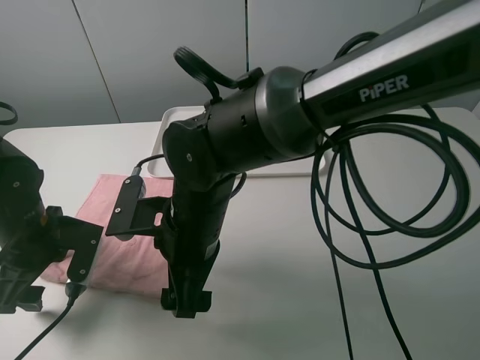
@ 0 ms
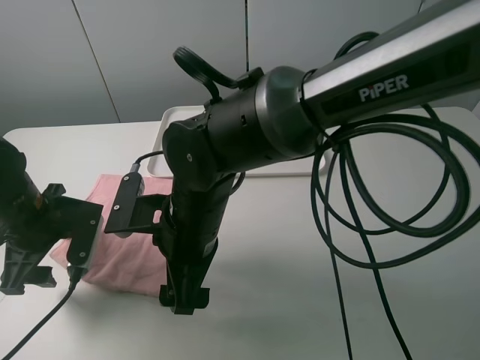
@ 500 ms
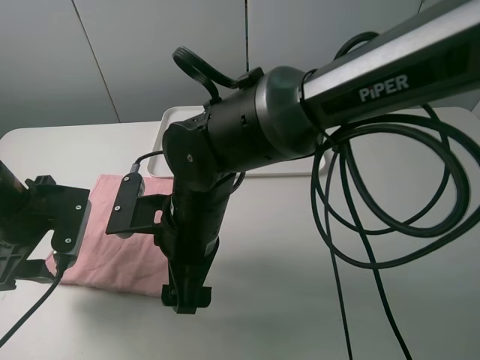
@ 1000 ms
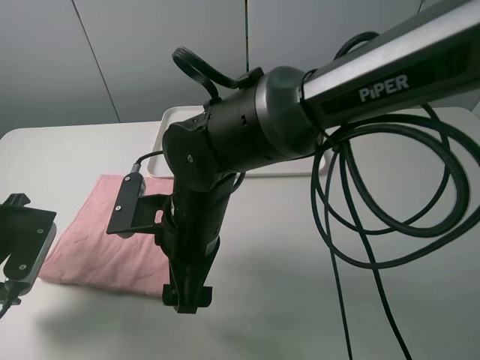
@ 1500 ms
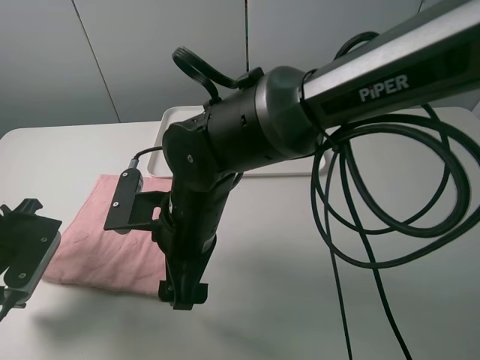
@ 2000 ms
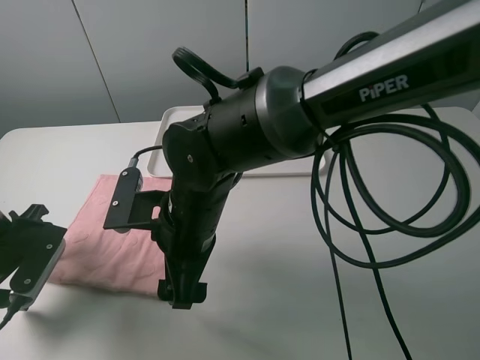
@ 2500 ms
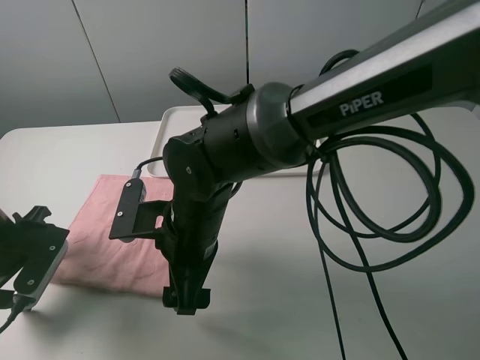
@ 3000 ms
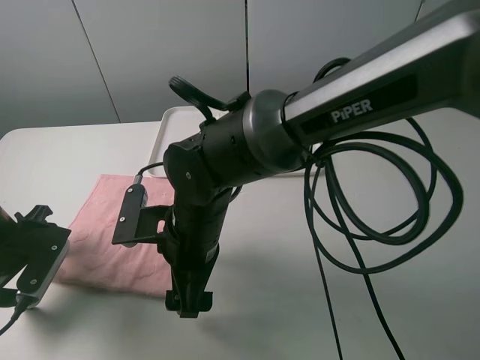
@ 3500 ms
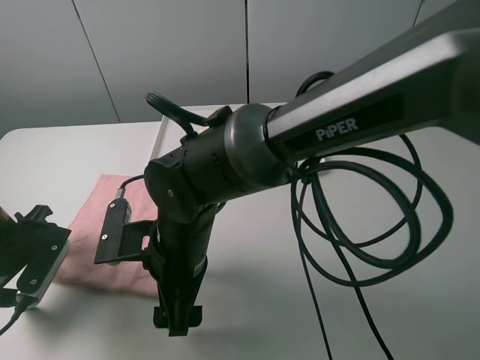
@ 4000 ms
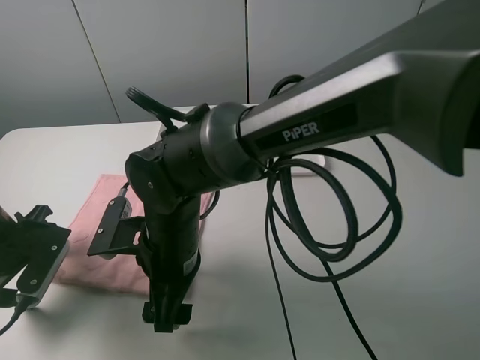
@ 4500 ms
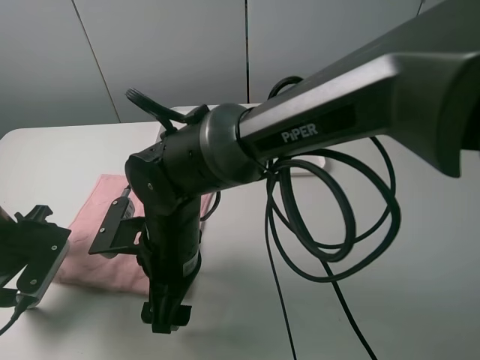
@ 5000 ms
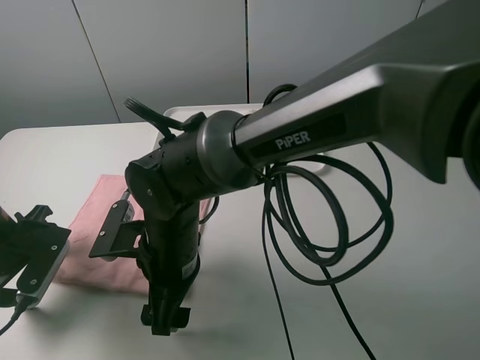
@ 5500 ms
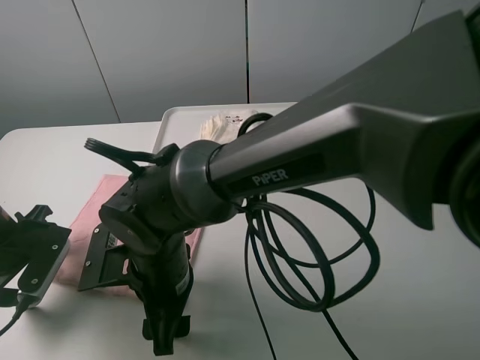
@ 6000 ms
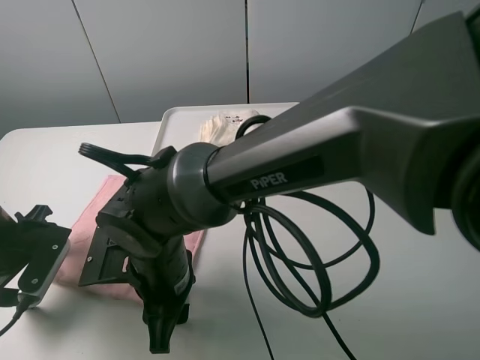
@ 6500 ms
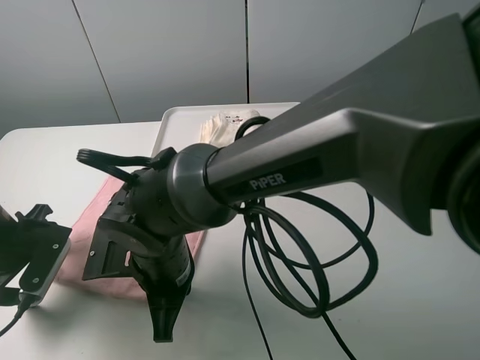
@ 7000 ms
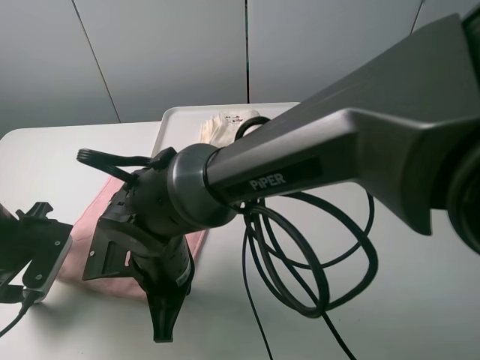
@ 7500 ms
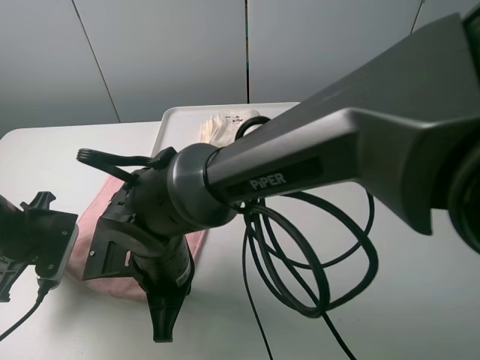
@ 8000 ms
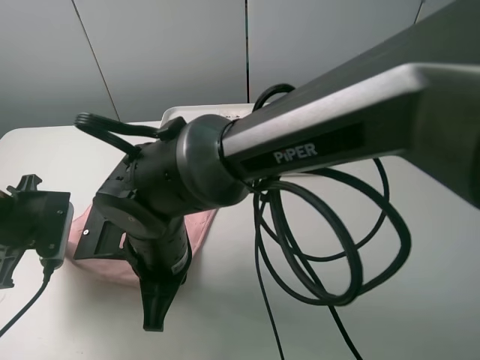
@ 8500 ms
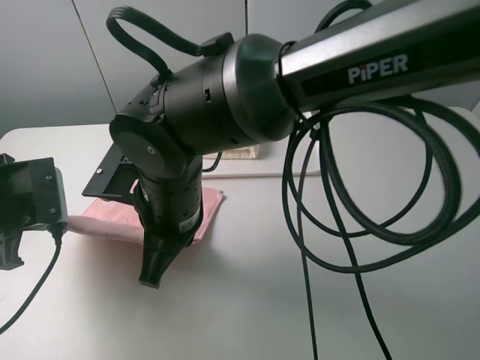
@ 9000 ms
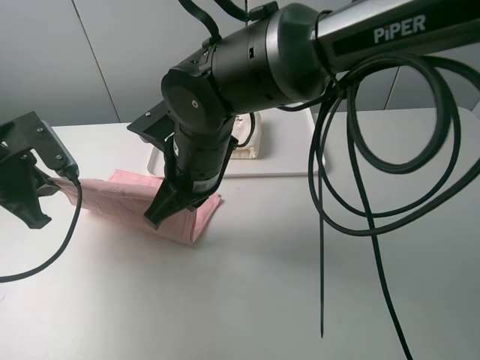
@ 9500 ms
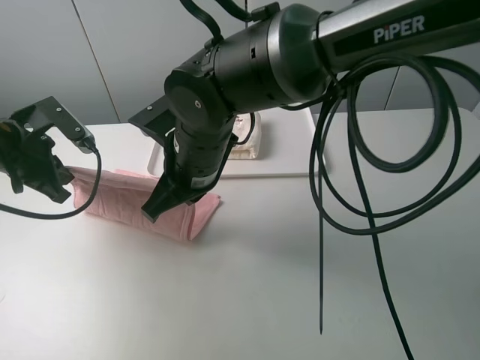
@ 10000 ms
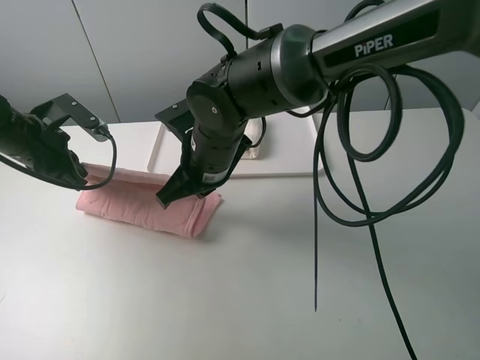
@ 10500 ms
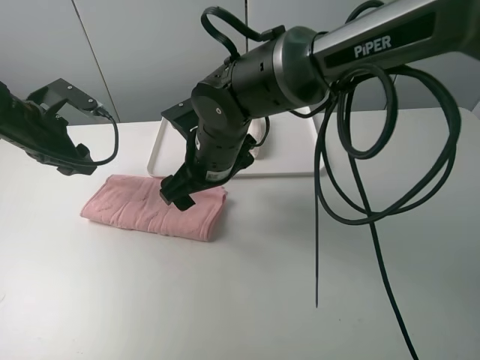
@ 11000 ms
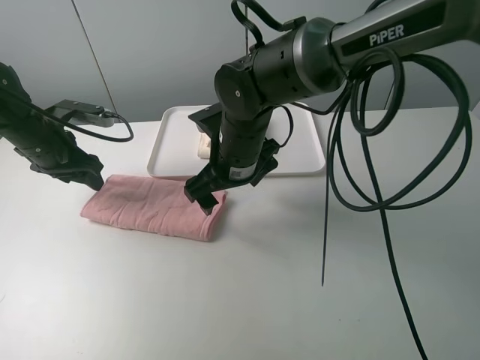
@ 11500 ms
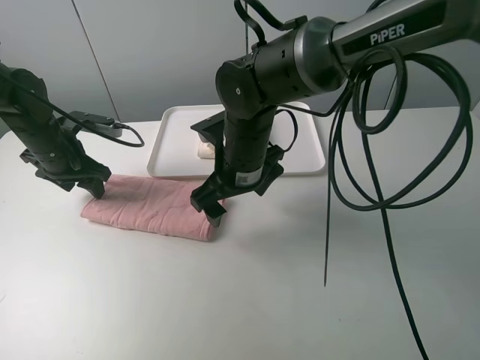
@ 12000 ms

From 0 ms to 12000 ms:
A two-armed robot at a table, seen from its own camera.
Task of the whole recording: fold one of the towels by two grippers and place it on the tray,then fold another towel by two grippers and place it on the folded towel.
Step, from 0 ms to 8000 ms: Grasp the pink towel with the left gripper.
Step, from 8500 ms to 11000 ms: Fold the pink towel upwards with the left gripper.
From 0 ms to 2000 ms: The left gripper shifts by roughly 5 cm.
From 6000 ms to 8000 ms: The right gripper closes its fingers. Meanwhile the left gripper closes.
From 8000 ms to 10000 ms: The left gripper is displaced upward and forward by about 10 cm; the right gripper shifts approximately 10 cm forward and upward.
From 10000 ms to 12000 ms: The left gripper moves forward, some 5 cm, and opens its fingers. The right gripper changes place by approximately 5 cm, and opens up.

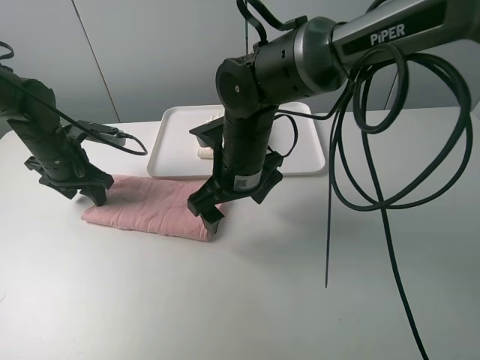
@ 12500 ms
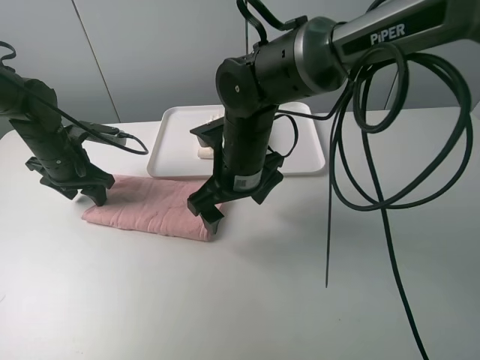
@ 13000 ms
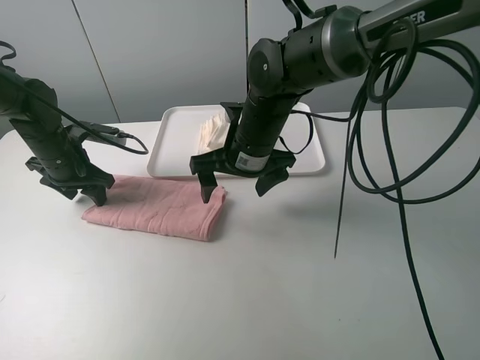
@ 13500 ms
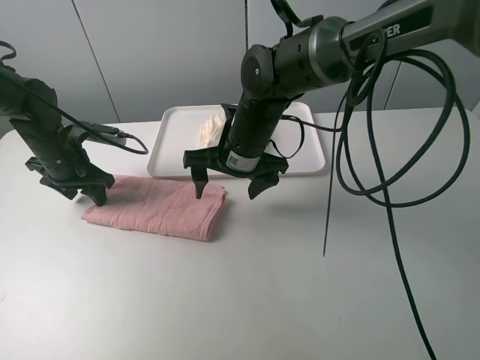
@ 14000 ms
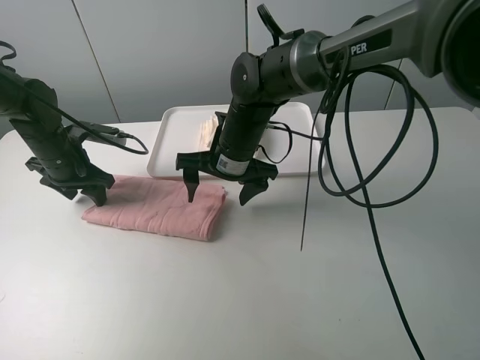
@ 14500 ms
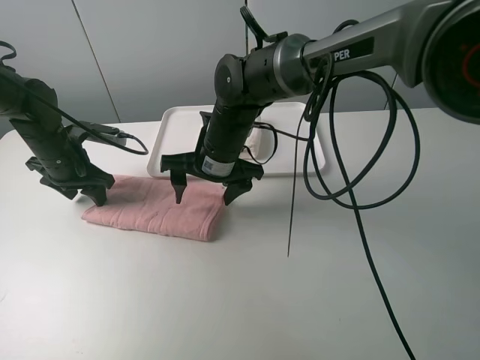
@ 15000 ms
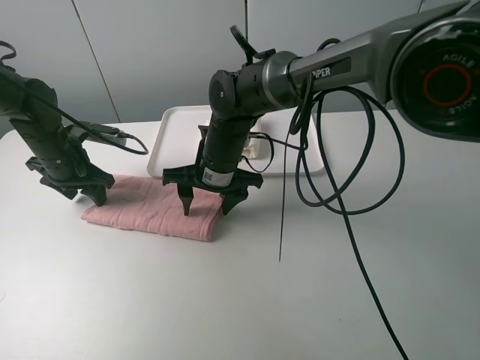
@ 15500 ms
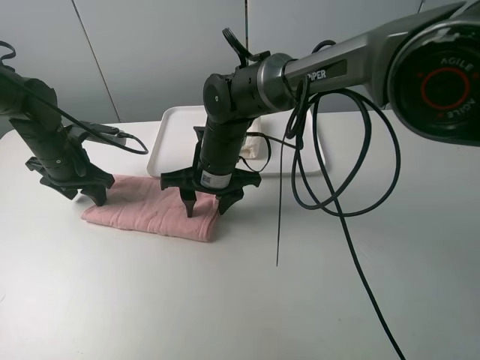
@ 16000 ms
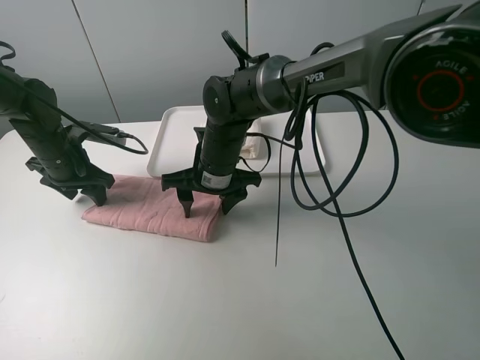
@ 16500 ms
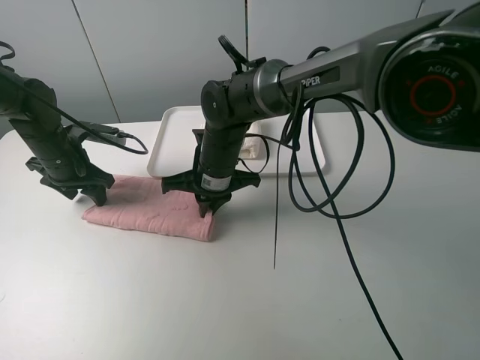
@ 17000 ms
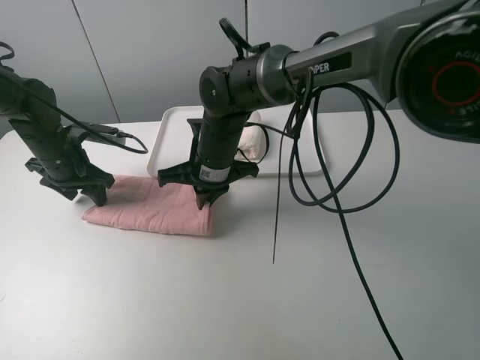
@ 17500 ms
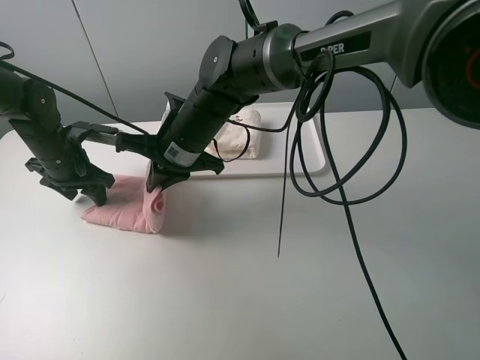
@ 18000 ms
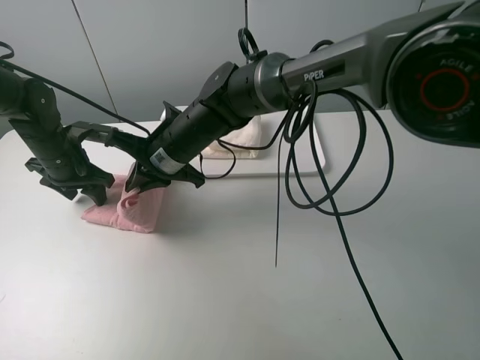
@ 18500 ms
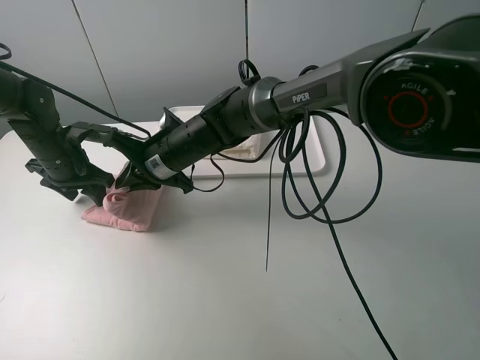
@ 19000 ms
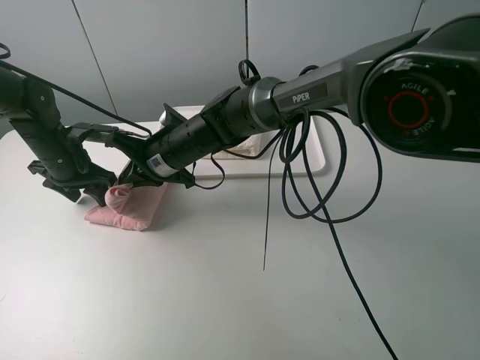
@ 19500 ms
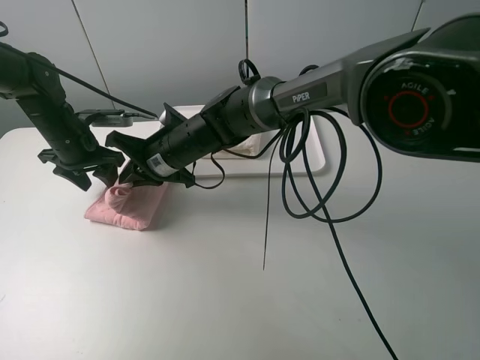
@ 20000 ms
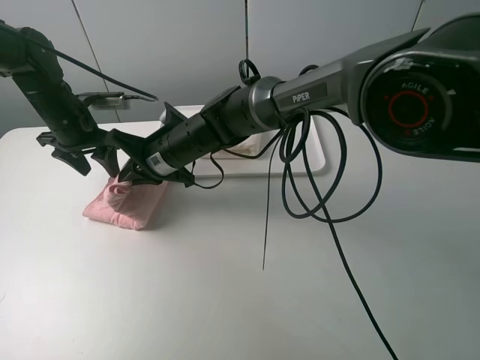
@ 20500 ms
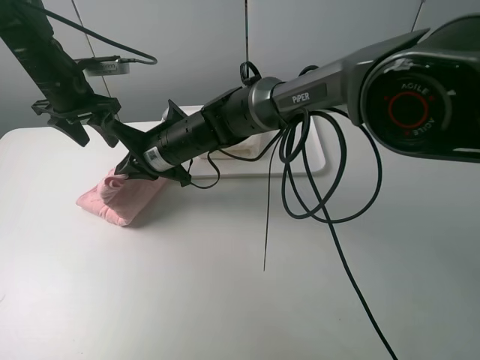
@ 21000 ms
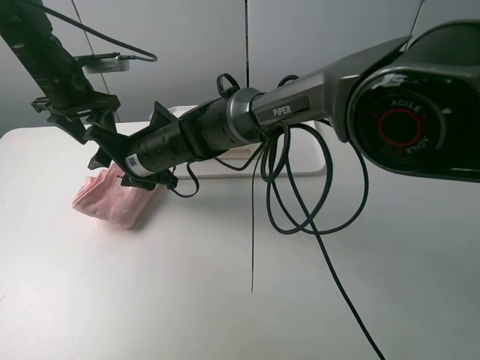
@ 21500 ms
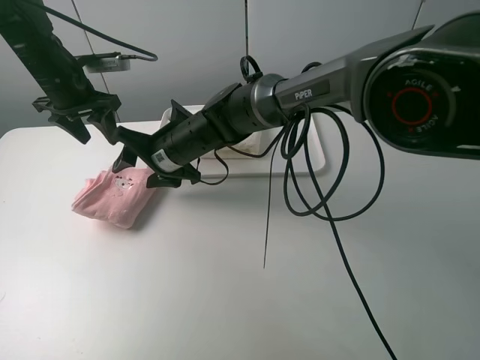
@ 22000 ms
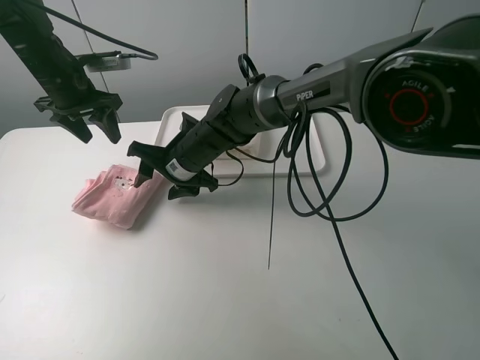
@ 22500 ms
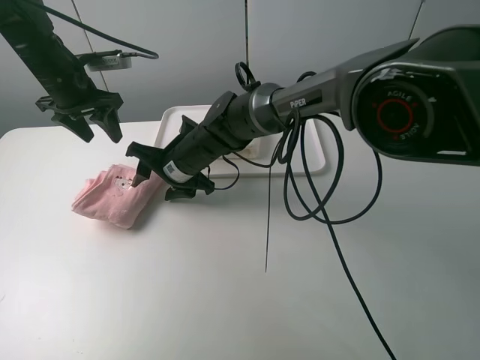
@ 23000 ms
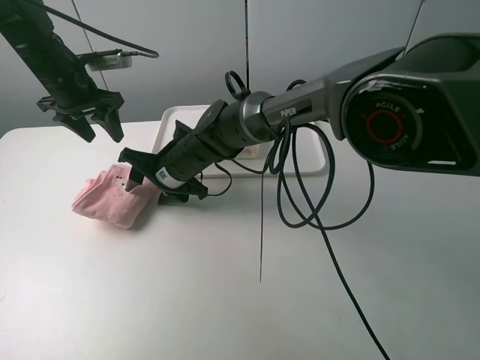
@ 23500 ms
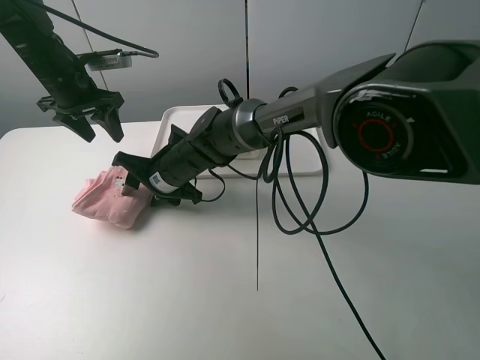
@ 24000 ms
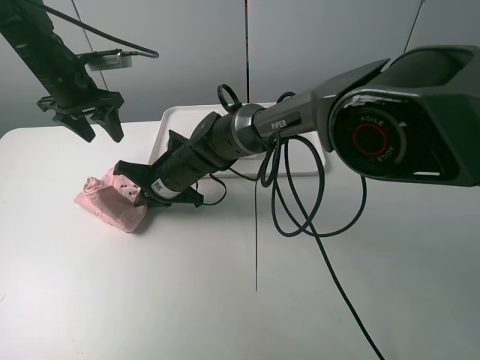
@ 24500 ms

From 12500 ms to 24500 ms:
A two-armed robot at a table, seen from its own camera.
Task of the whole recording: fold one of the towels by two grippers and place it on the tray,then fold another towel by two grippers and place it on the folded towel.
Step, from 13000 ms to 17000 ms: Grasp the pink towel with the right gripper.
Step, from 17500 ms to 21500 ms: Fold the pink towel from right to left with right gripper.
Step, from 22000 ms to 24000 ms: Grasp the pink towel with the right gripper.
From 12500 ms to 14500 ms: The right gripper shifts about 5 cm forward.
From 14500 ms to 16500 ms: The grippers move only a little.
From 16500 ms to 18500 ms: The right gripper shifts by roughly 5 cm, and closes its fingers.
From 18500 ms to 20500 ms: The left gripper travels upward by some 5 cm.
From 20500 ms to 22500 ms: The right gripper opens its fingers; the left gripper shifts about 5 cm upward.
From 22500 ms to 24500 ms: The right gripper closes its fingers.

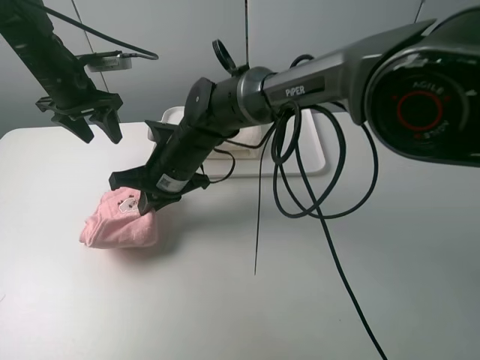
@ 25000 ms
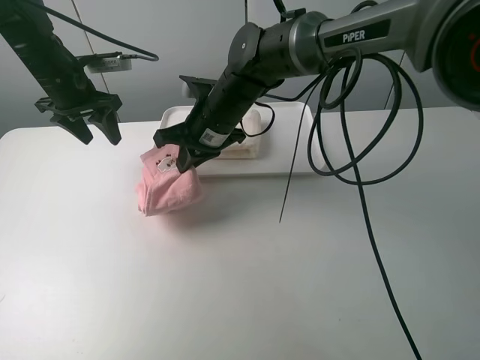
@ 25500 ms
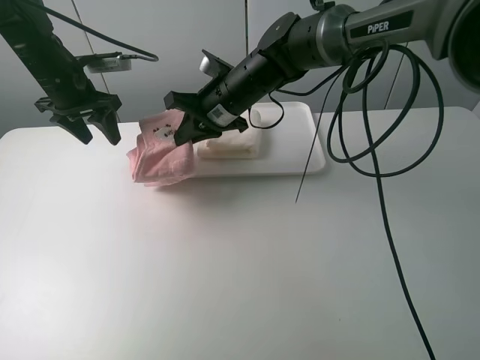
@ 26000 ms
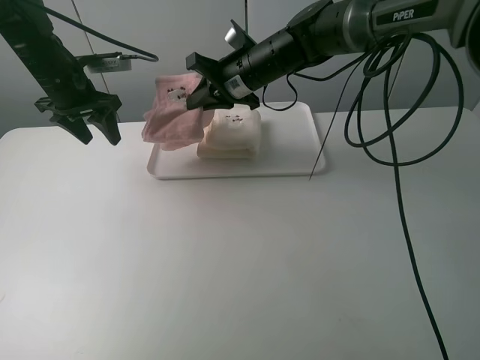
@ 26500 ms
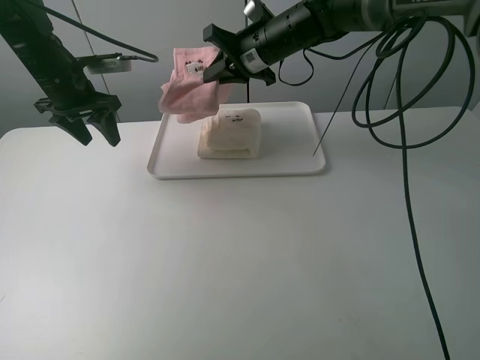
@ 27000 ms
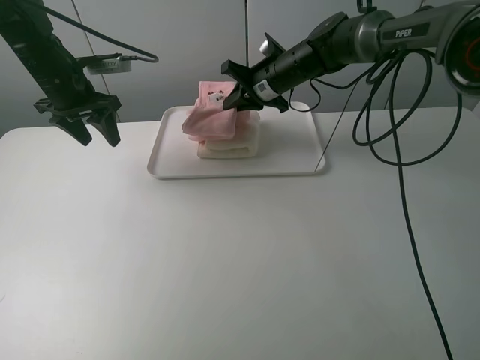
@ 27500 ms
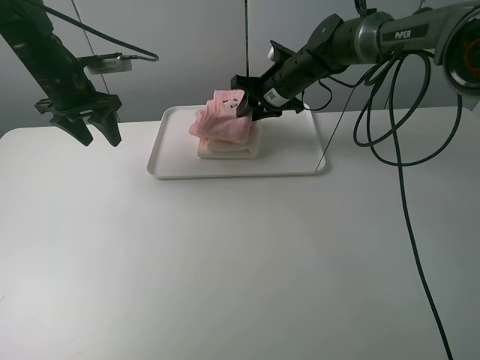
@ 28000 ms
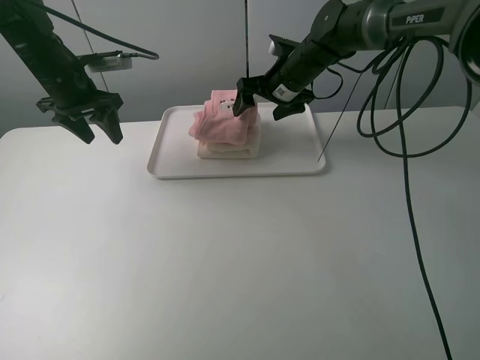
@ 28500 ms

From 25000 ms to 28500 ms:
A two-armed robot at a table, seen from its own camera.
Task of the whole recording: fold one of the towels by two grippers and place it on the tray,then fold another towel by two grippers and place it on the folded towel.
Step, from 25000 ms to 28000 ms: Place the pink towel on the white towel with the right gripper.
From 25000 ms to 27000 ms: The right gripper heads forward, to the right and upward, covering roughly 20 cm.
From 27000 ms to 28500 ms: The right gripper shifts by approximately 5 cm, and opens its fingers.
